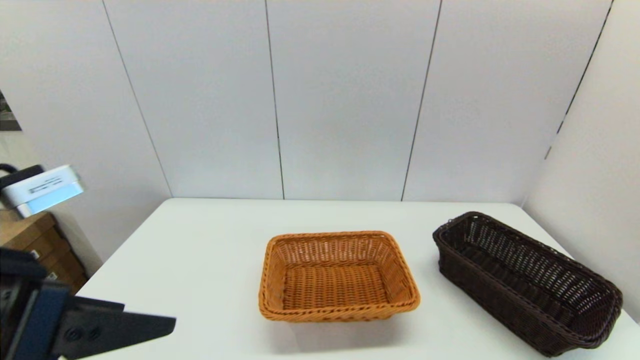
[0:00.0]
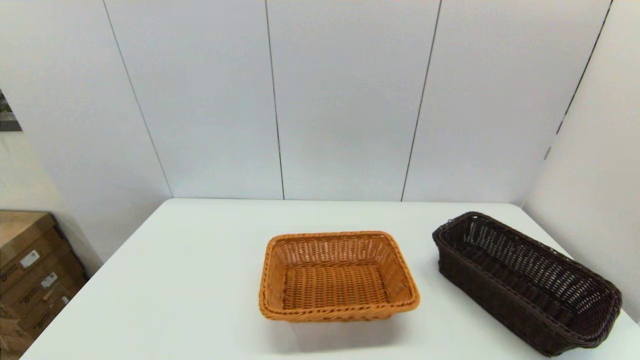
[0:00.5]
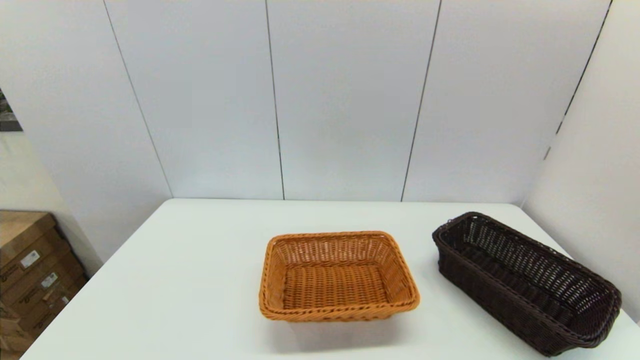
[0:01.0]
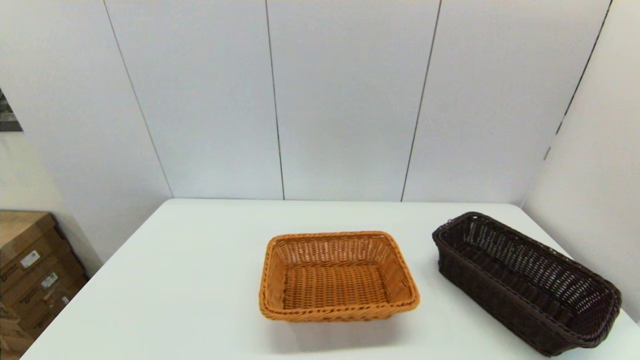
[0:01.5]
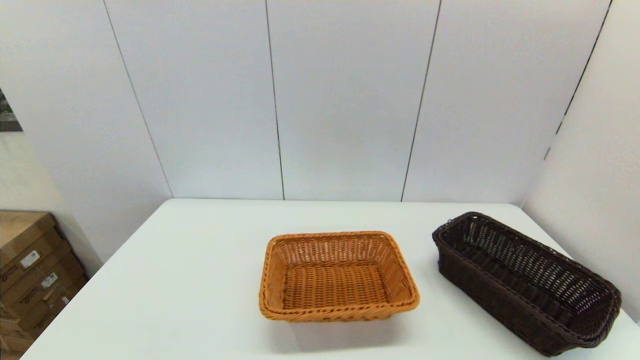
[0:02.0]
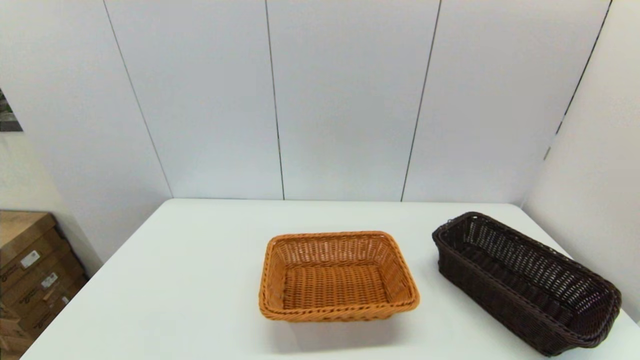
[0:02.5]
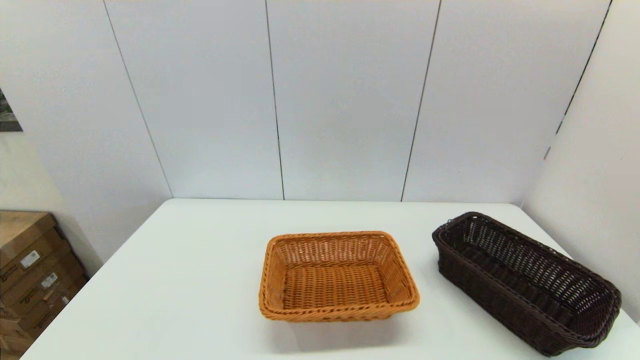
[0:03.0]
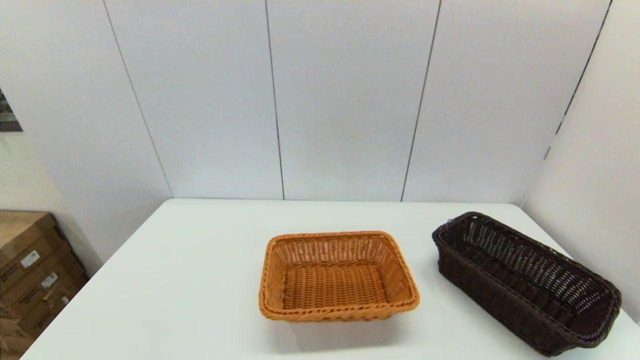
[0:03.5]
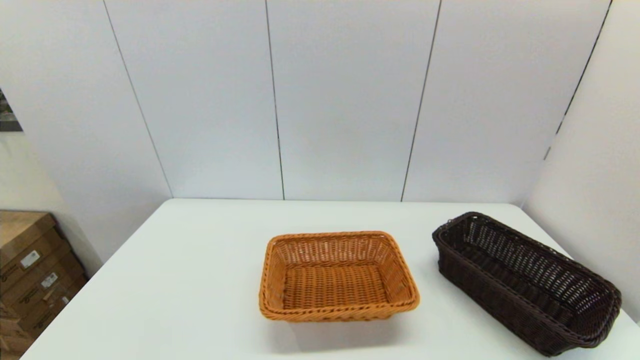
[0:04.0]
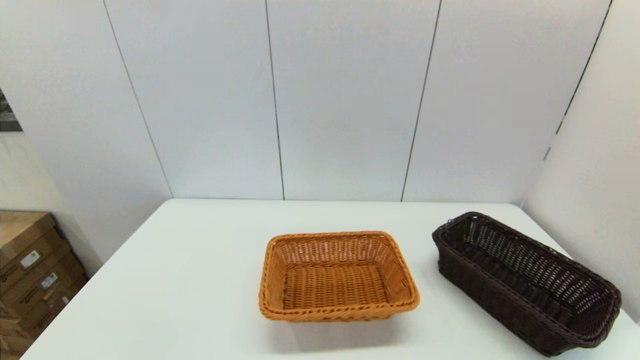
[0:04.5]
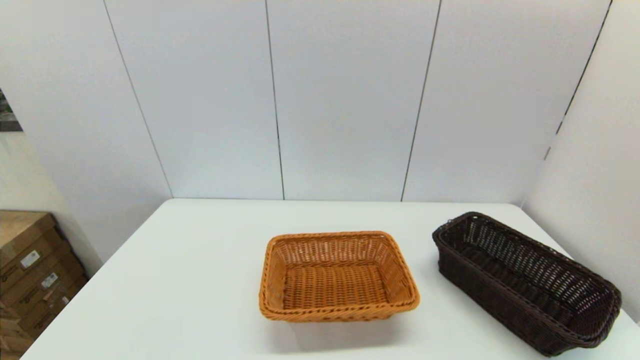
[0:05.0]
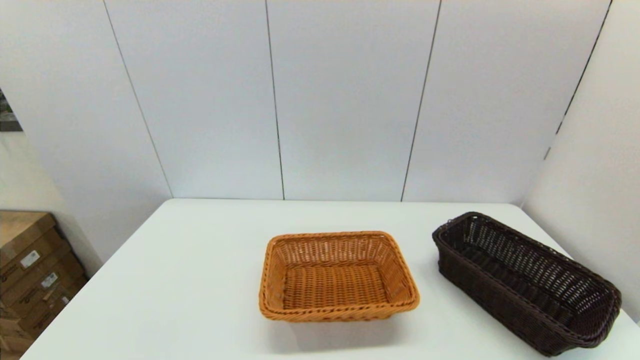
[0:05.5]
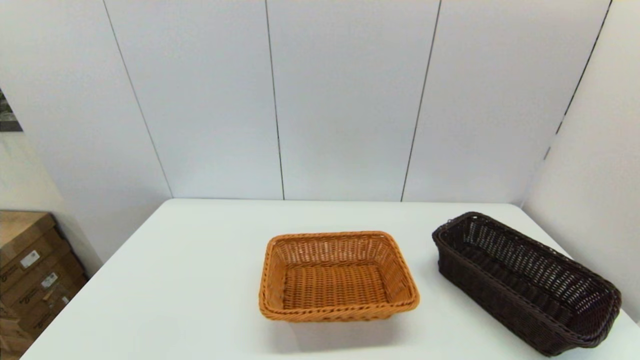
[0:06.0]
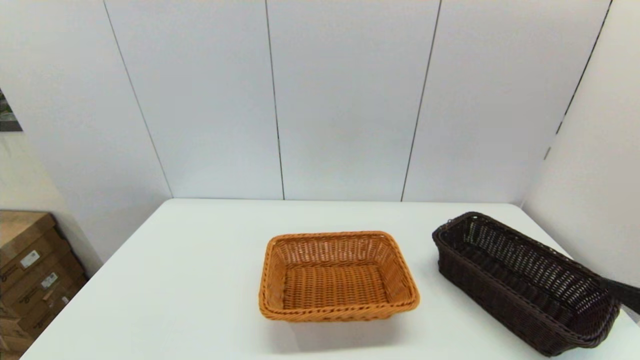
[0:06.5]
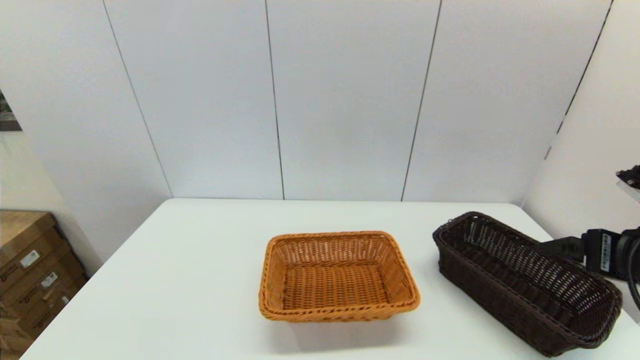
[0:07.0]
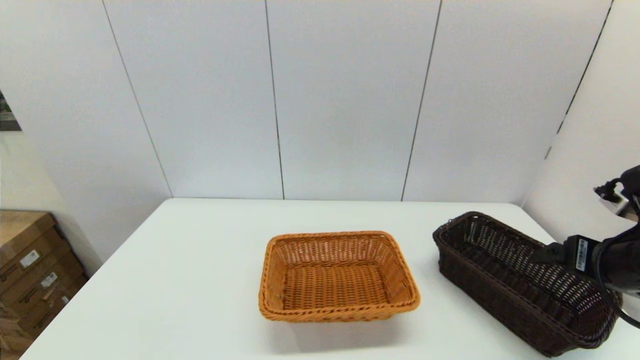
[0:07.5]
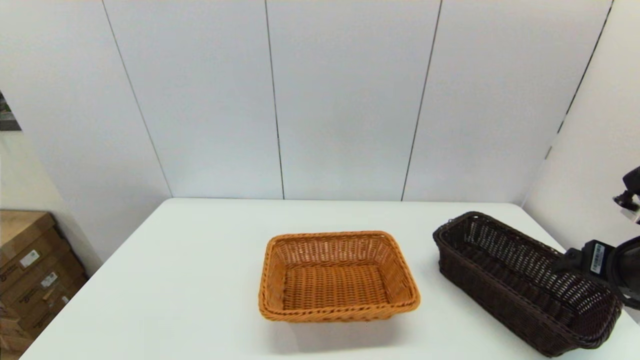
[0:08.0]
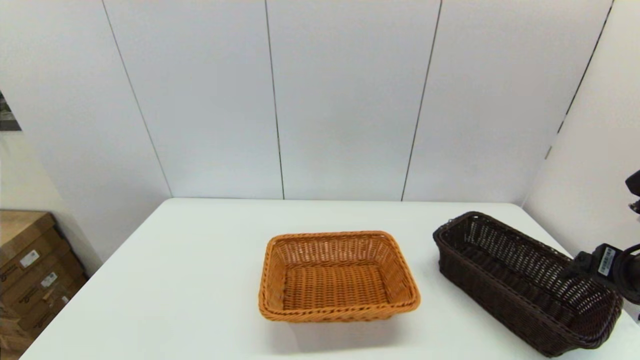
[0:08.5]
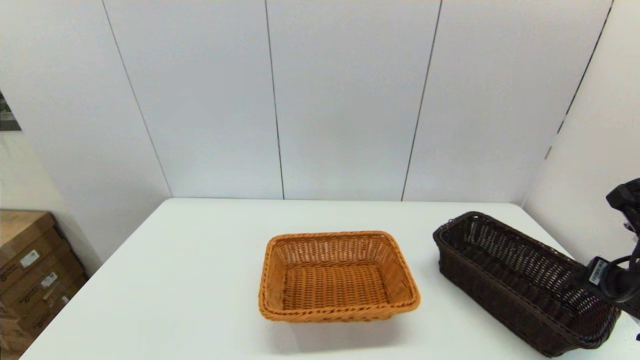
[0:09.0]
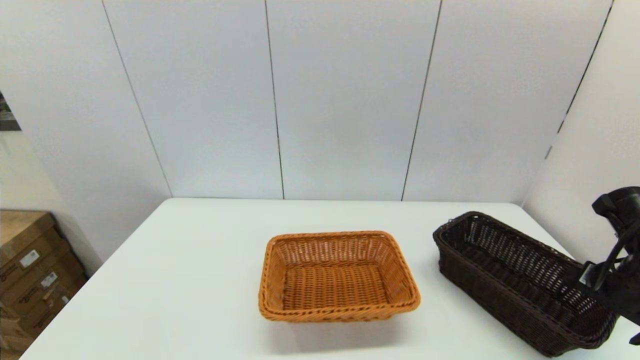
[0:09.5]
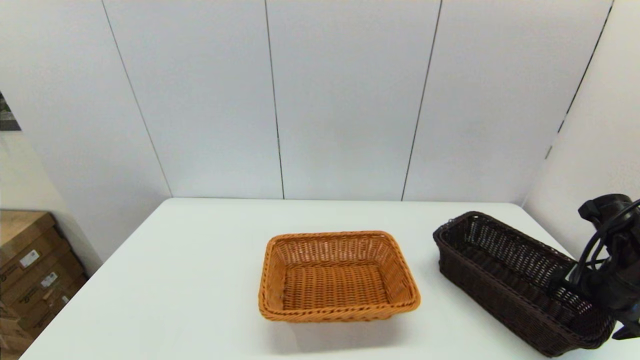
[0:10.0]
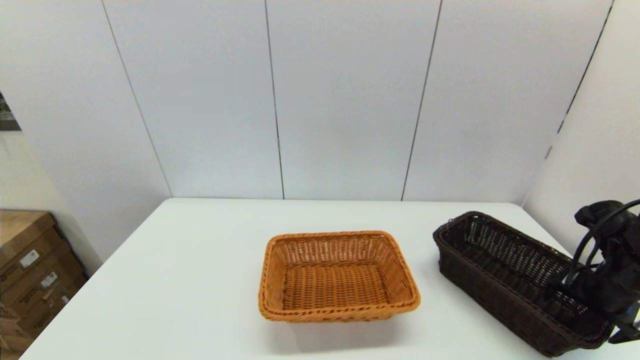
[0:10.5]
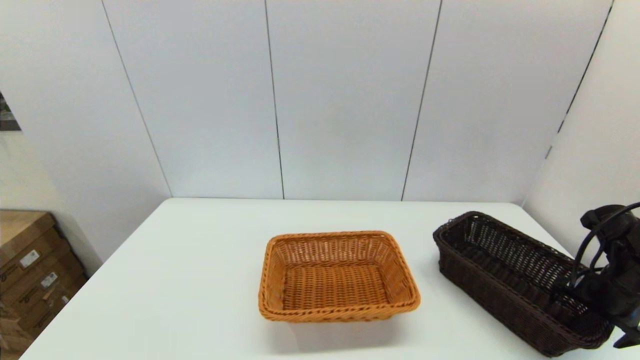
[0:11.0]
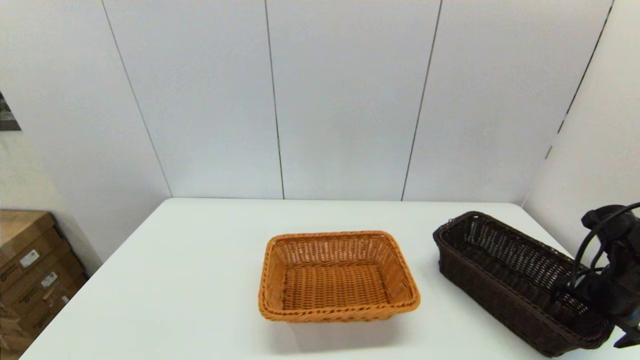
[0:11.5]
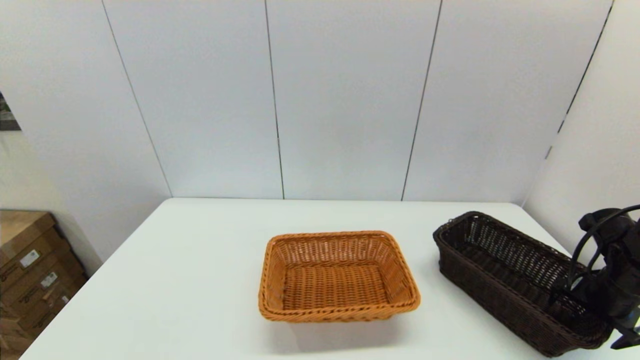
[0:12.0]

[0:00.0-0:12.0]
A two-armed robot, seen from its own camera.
Task of the whole recording: stack a basket on top of another basket.
0:00.0 to 0:02.0: The left gripper shifts about 25 cm backward and downward.
0:06.0 to 0:08.0: The right gripper travels forward by approximately 25 cm.
0:08.0 to 0:10.0: The right gripper is displaced downward and forward by about 10 cm.
0:10.0 to 0:12.0: There are only small adjustments of the grippers.

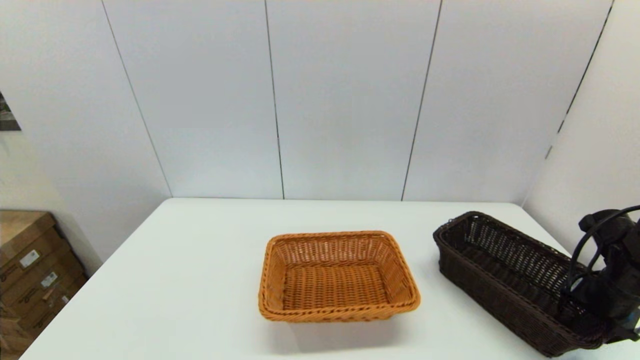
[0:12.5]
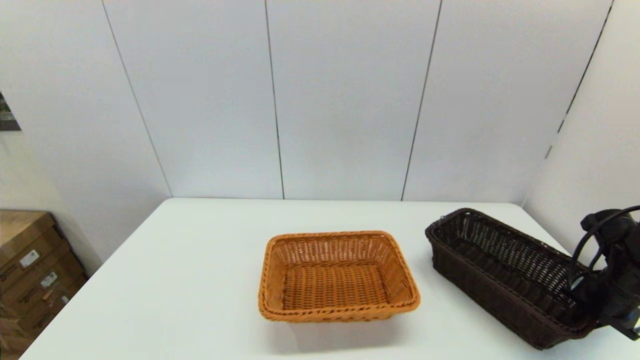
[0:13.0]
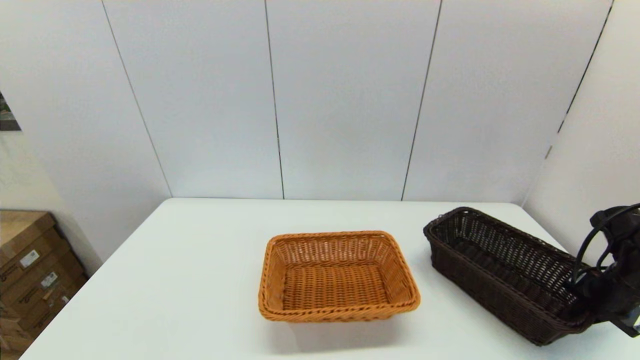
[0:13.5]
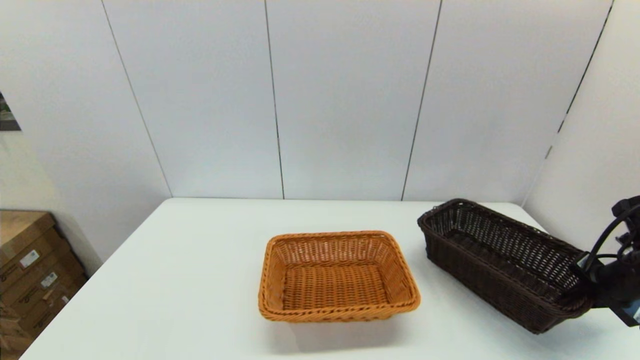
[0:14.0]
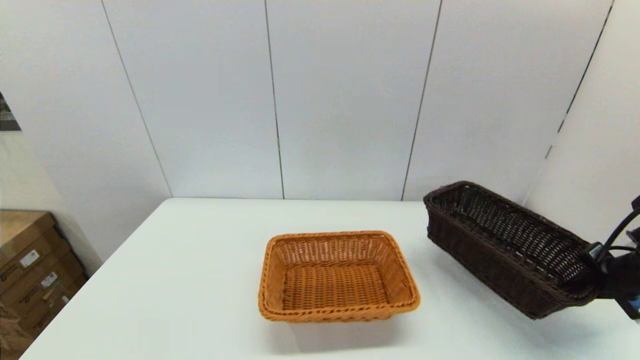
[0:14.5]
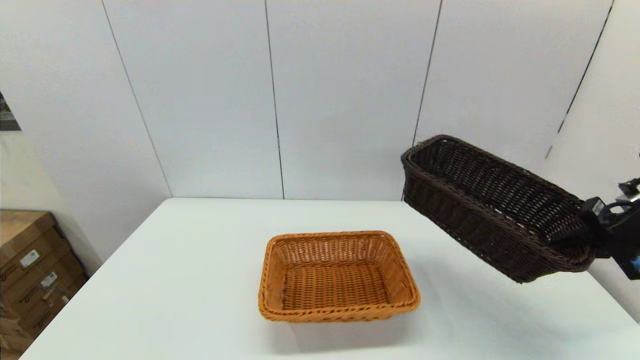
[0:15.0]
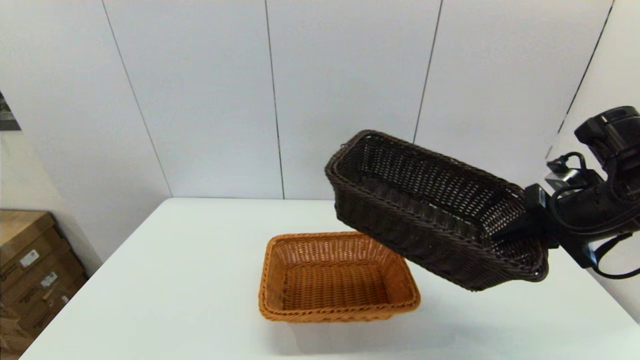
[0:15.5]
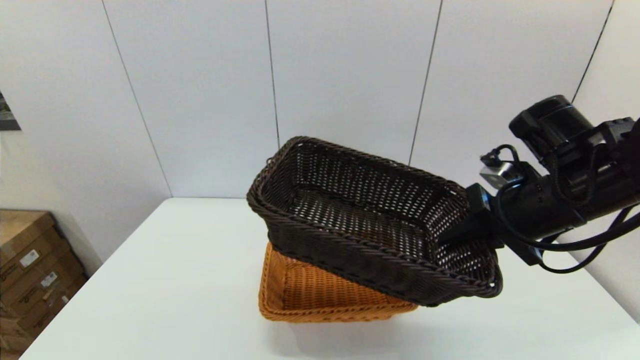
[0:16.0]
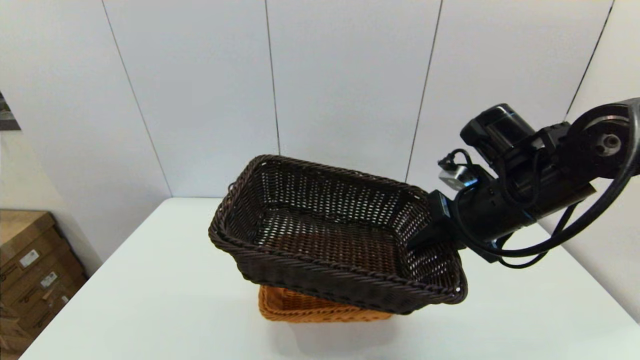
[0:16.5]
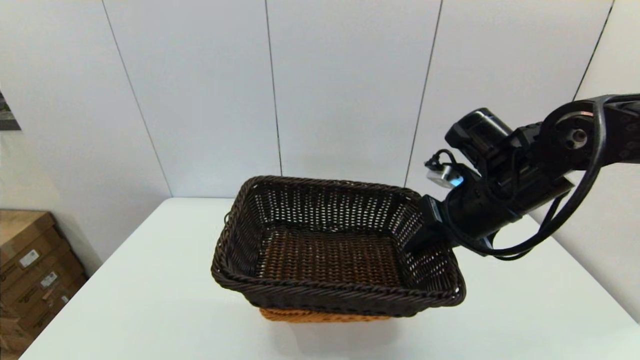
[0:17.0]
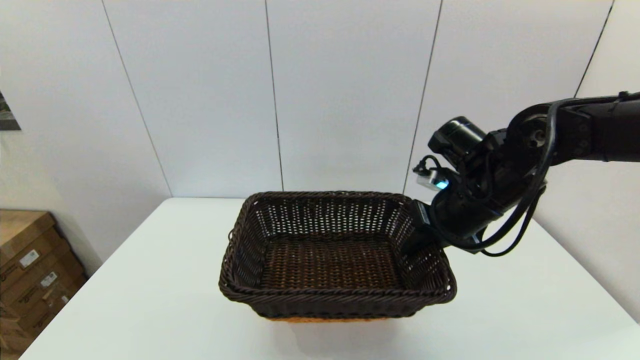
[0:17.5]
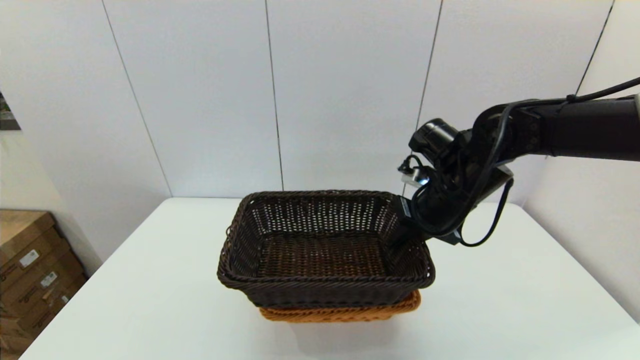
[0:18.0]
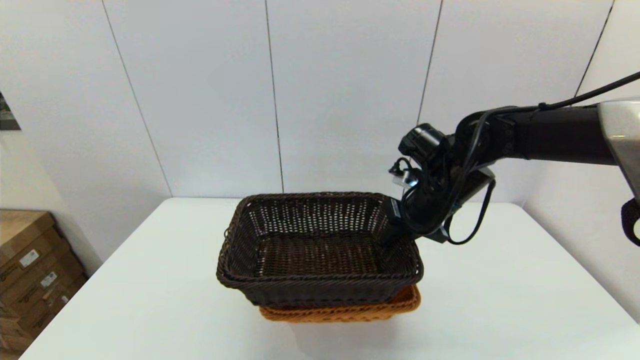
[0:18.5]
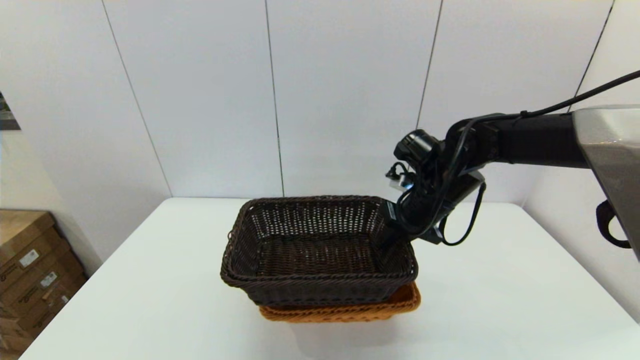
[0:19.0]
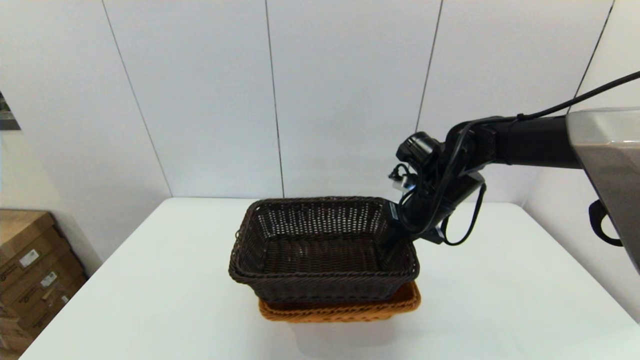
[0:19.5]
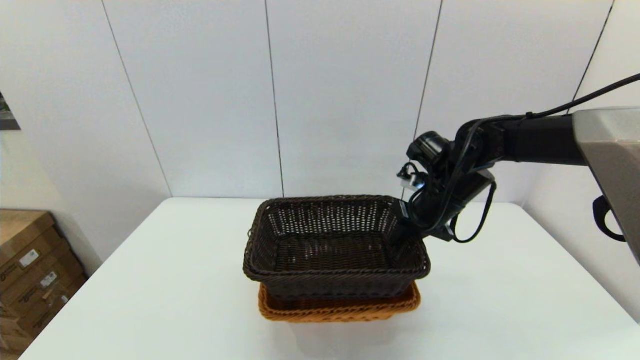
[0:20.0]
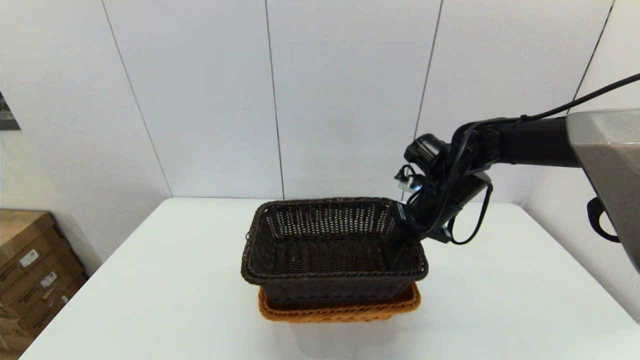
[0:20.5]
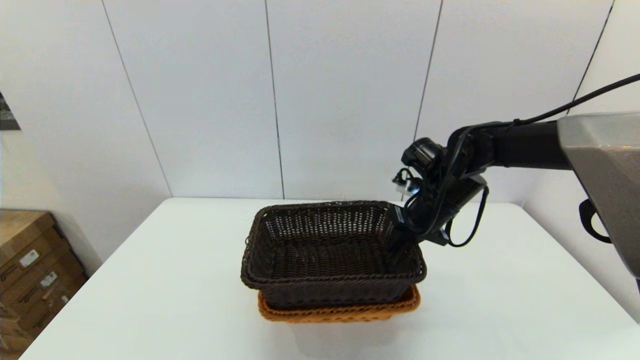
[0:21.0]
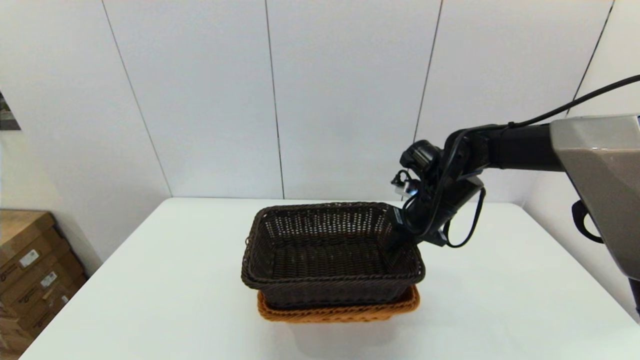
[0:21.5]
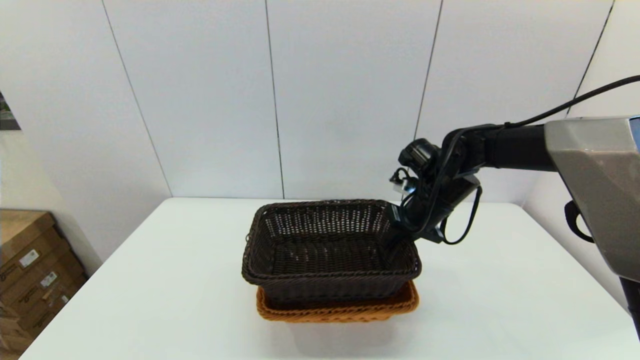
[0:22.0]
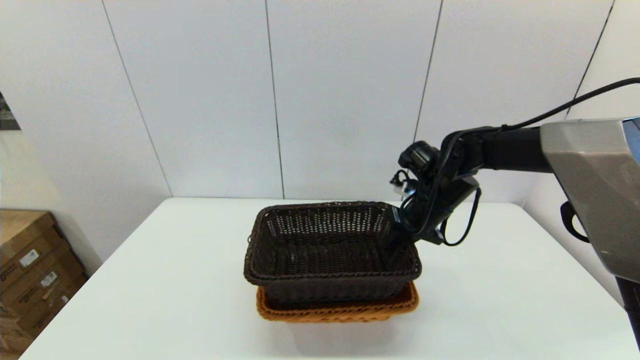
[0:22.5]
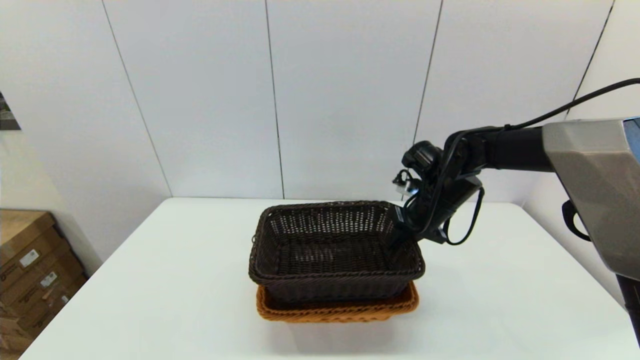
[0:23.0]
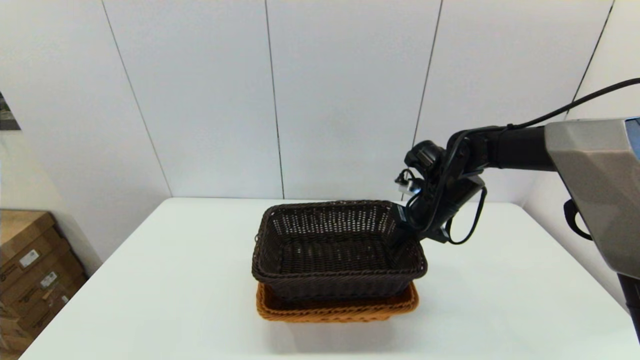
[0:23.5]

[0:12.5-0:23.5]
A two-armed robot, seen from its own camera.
Task of the whole recording: stack a basket on top of another basket.
0:12.5 to 0:14.5: The right gripper changes place by some 5 cm, and closes its fingers.
0:14.5 to 0:16.0: The right gripper goes roughly 25 cm to the left and upward.
0:16.0 to 0:18.0: The right gripper travels forward and to the left by approximately 10 cm.
0:18.0 to 0:20.0: The right gripper changes place by about 5 cm.
0:20.0 to 0:23.5: The grippers move only a little.
